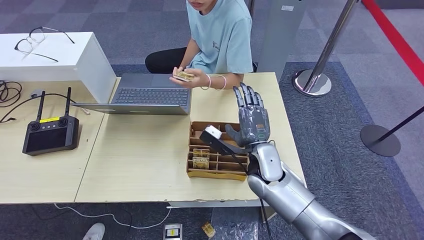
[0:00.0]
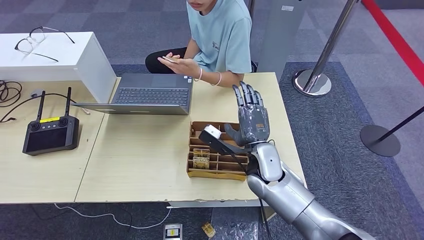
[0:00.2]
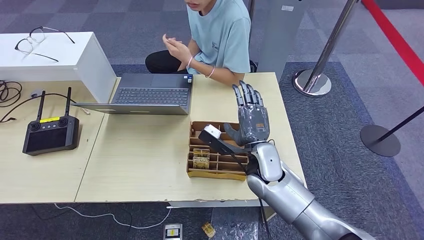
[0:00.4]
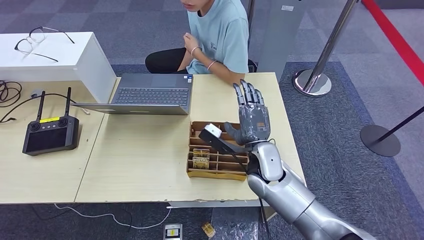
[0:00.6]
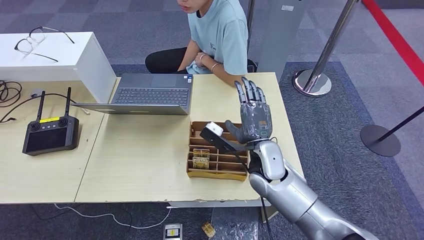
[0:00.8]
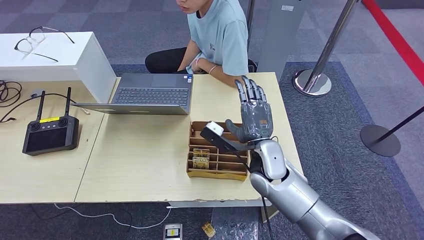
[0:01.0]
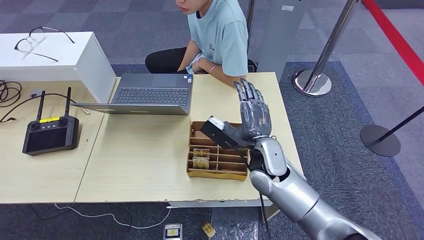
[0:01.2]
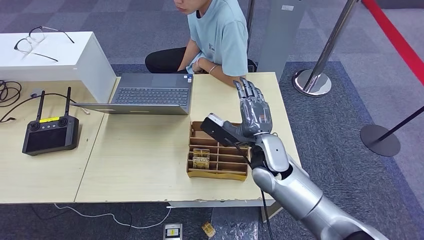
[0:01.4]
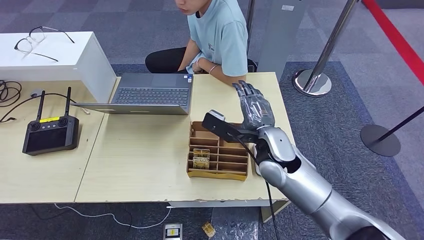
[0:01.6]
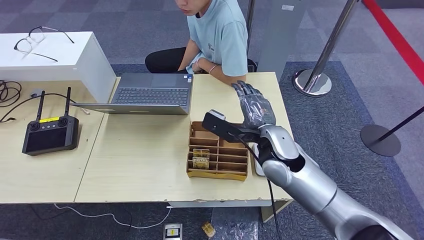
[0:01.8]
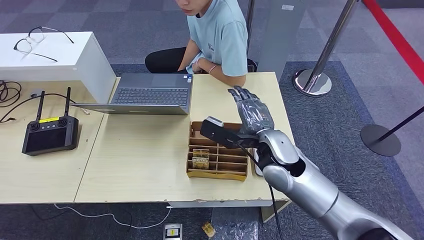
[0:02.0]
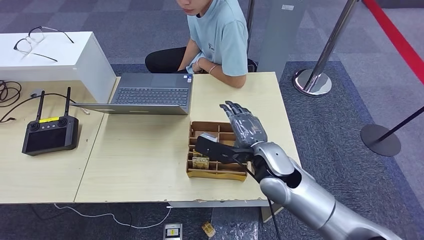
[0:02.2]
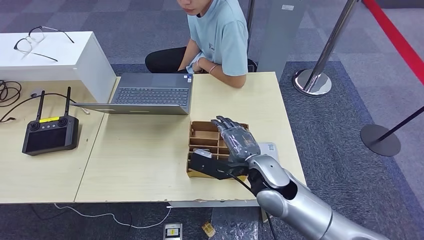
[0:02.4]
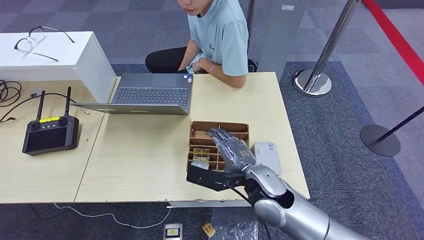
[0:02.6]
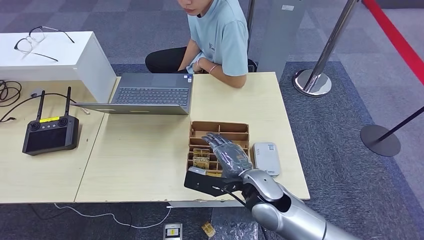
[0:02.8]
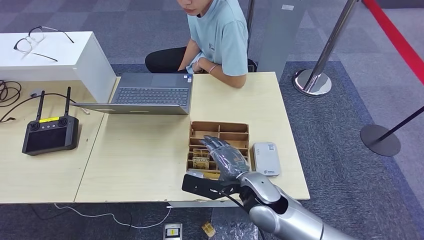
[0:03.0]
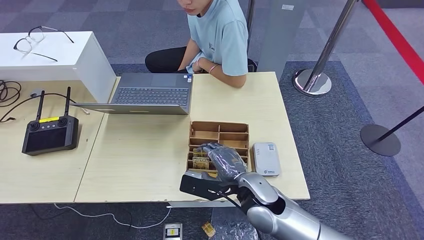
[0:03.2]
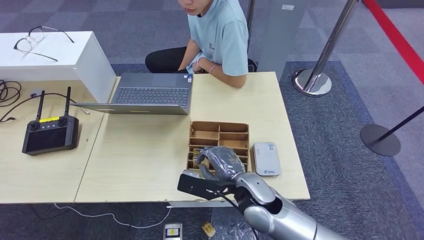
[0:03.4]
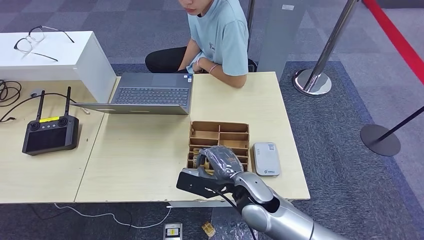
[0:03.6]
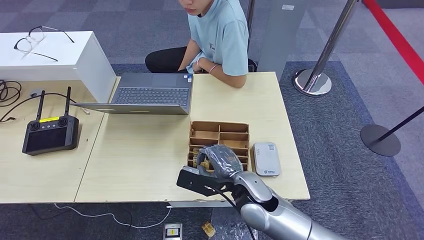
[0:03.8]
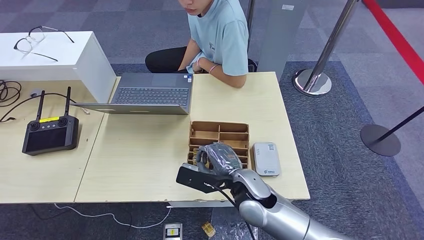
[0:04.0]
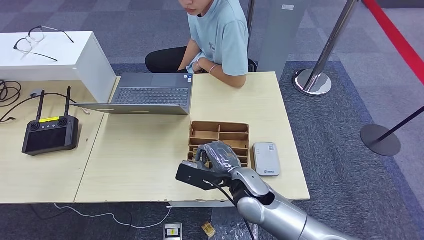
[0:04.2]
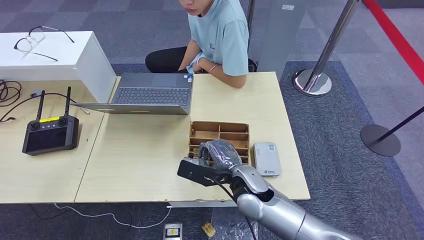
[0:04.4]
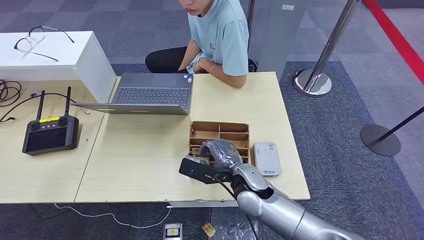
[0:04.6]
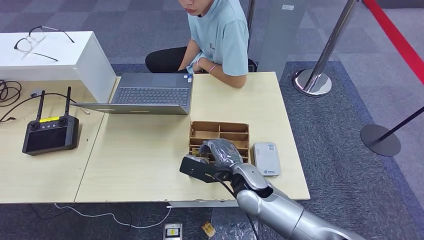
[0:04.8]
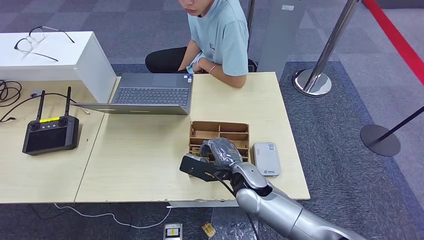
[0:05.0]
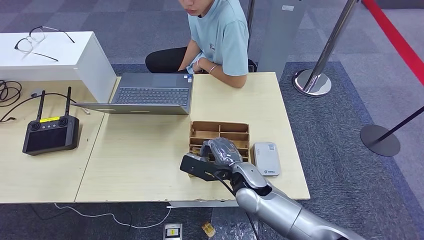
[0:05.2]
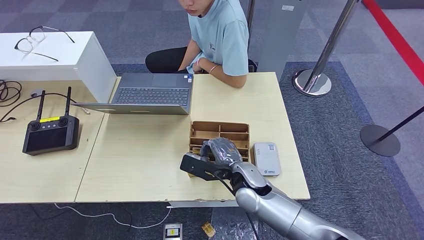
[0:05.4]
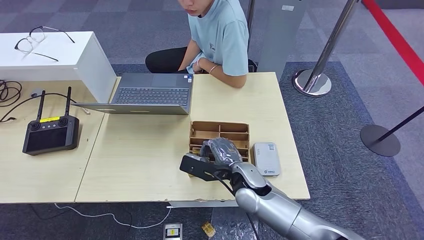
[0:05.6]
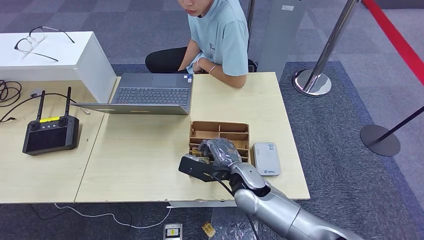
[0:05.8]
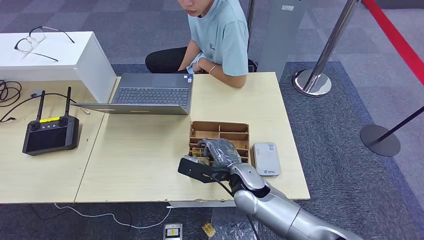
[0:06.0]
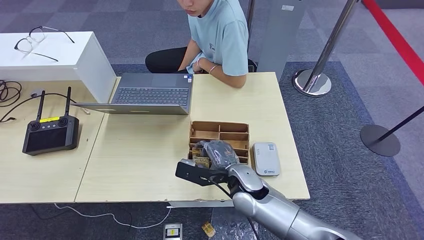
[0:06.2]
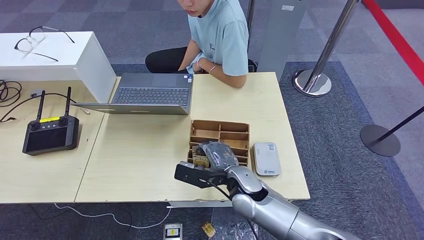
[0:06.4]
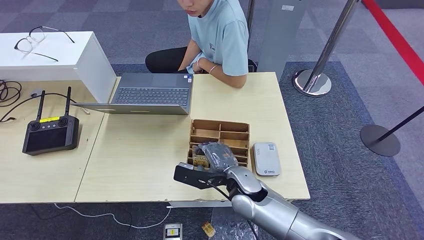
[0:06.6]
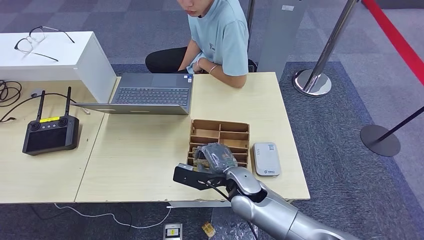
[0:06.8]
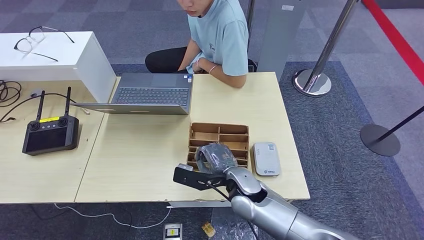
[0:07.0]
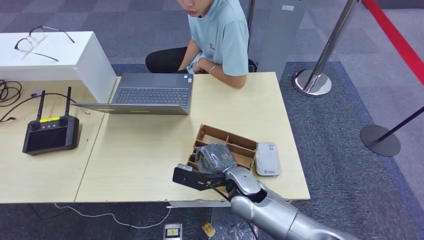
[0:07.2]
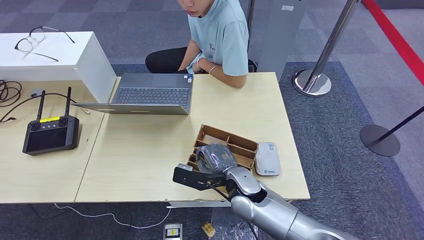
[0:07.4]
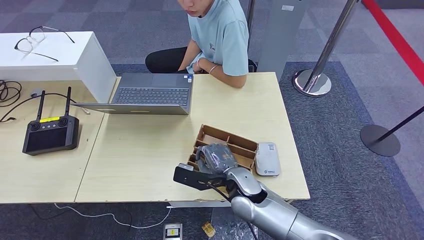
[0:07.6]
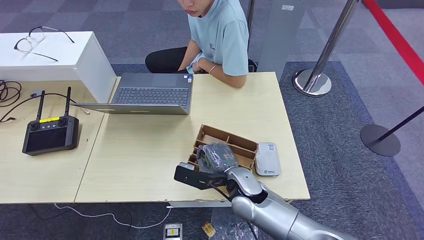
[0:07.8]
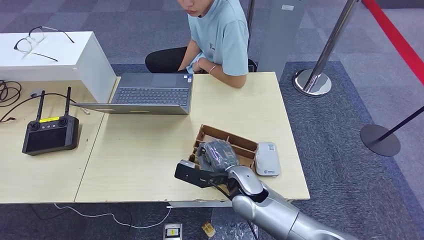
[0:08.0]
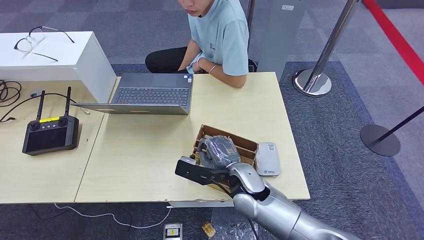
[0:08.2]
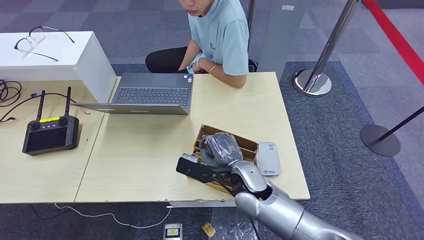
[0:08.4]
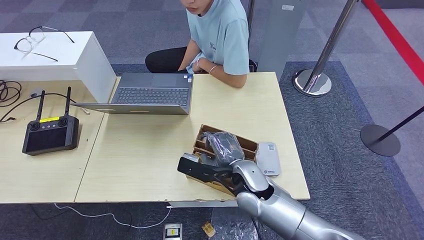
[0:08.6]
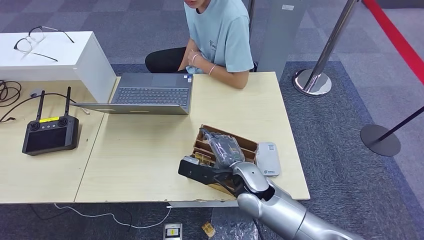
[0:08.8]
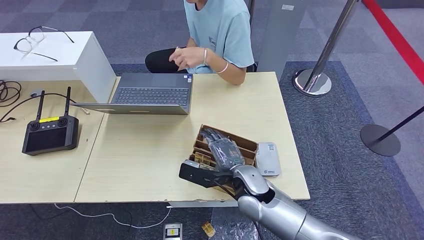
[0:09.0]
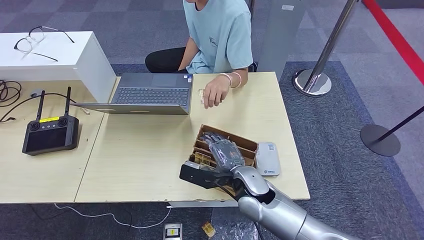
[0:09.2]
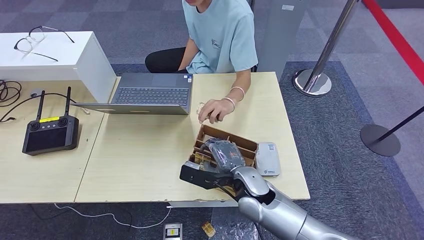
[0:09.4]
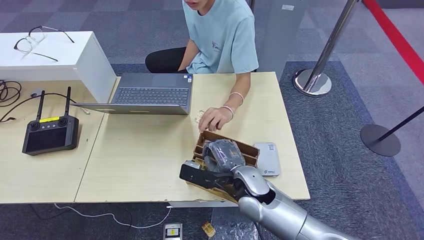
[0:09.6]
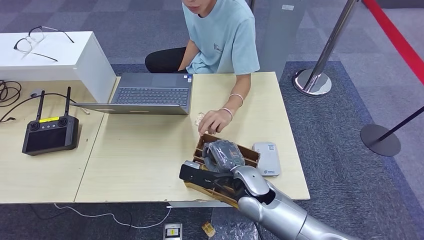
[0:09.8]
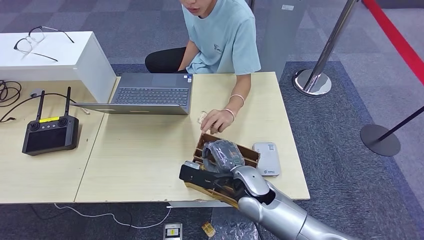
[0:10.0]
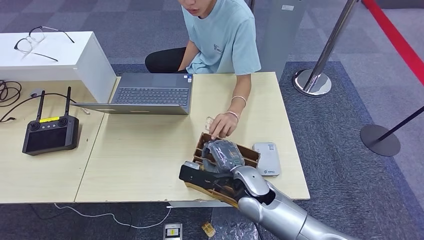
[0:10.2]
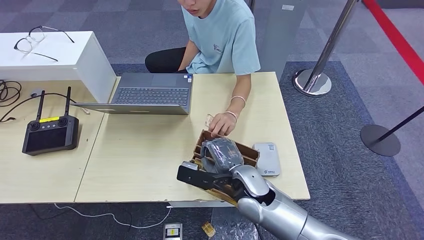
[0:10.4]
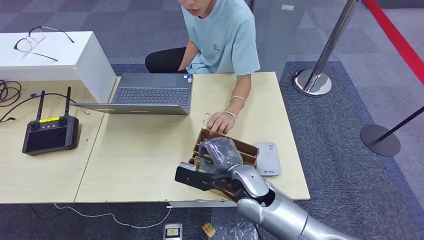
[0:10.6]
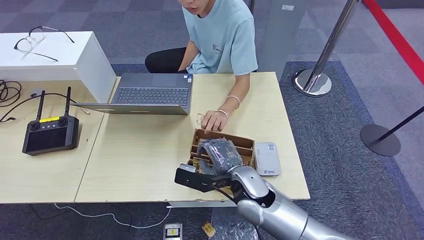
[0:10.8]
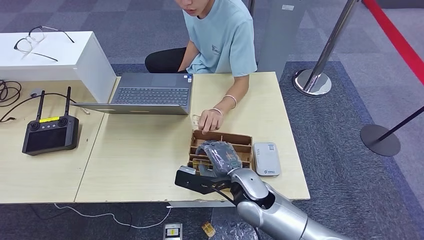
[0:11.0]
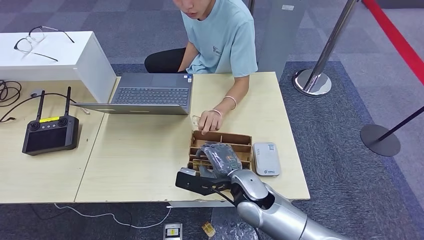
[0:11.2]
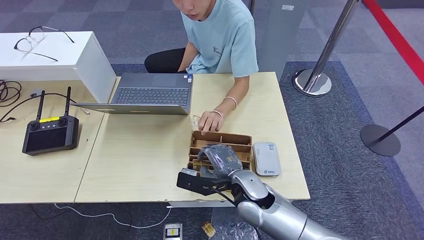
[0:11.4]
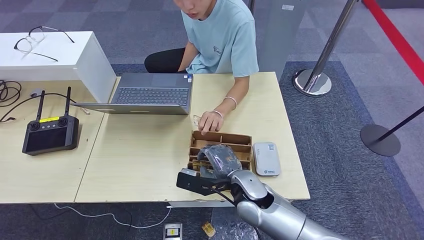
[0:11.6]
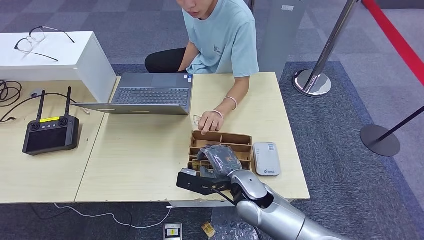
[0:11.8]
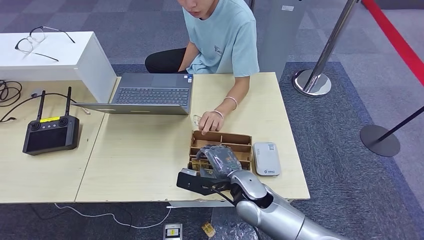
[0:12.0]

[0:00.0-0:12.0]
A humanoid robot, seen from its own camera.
0.0 to 1.6 s: The right hand shifts about 5 cm upward.
1.6 to 3.0 s: The right hand goes some 10 cm backward and downward.
3.0 to 6.0 s: The hands stay close to where they were, moving slightly.
6.0 to 7.6 s: Both hands stay about where they are.
7.6 to 9.0 s: The hands make only small movements.
9.0 to 10.4 s: Neither hand changes place.
10.4 to 12.0 s: The hands make only small movements.

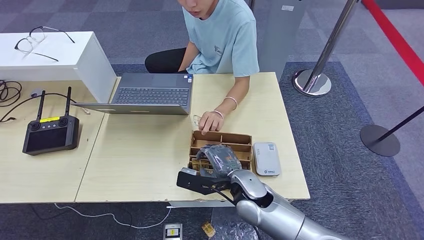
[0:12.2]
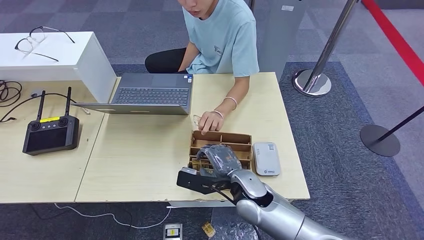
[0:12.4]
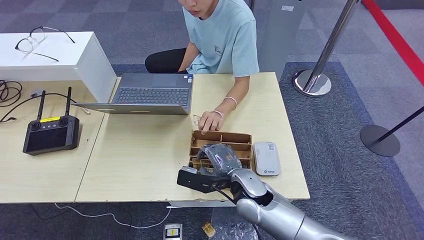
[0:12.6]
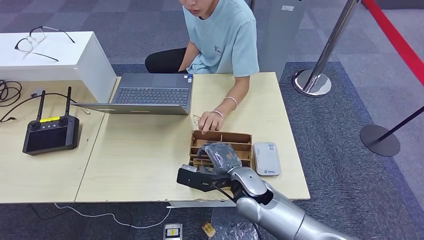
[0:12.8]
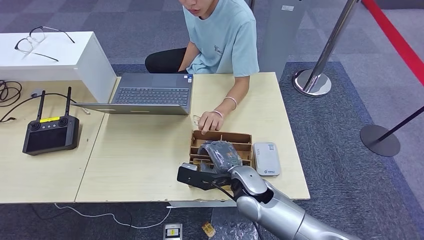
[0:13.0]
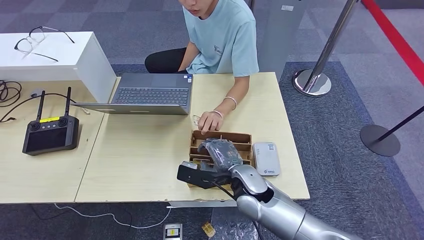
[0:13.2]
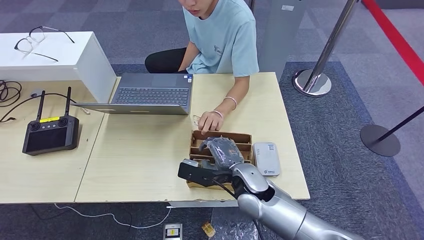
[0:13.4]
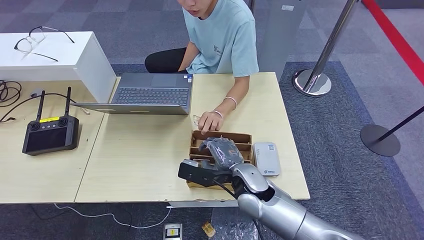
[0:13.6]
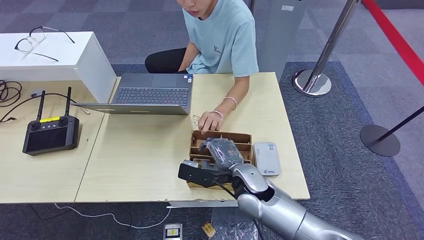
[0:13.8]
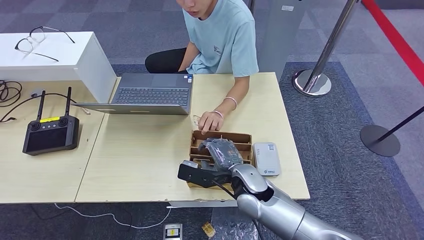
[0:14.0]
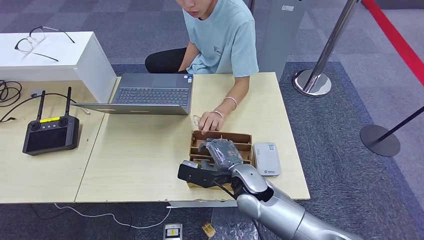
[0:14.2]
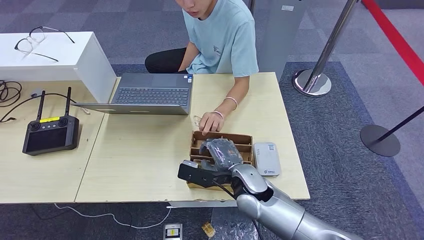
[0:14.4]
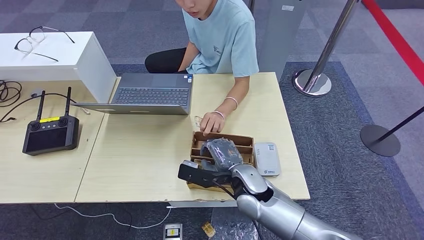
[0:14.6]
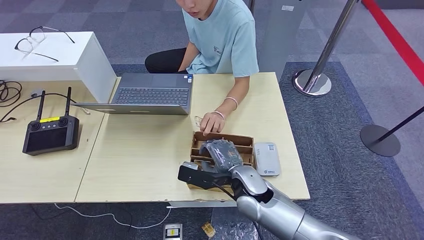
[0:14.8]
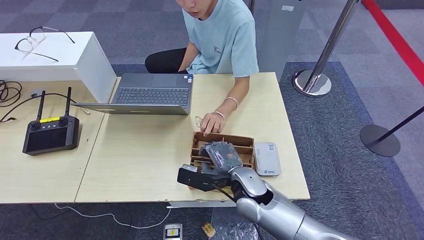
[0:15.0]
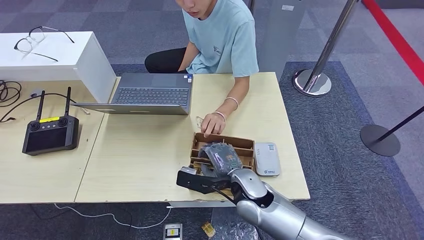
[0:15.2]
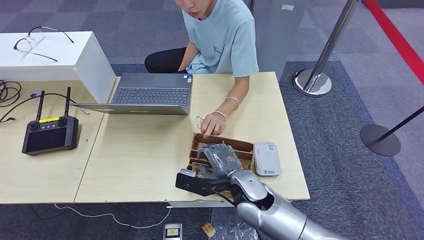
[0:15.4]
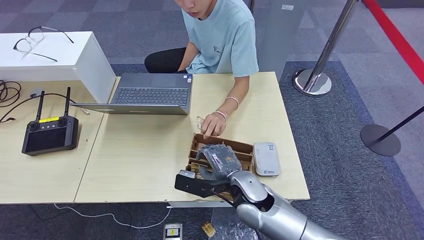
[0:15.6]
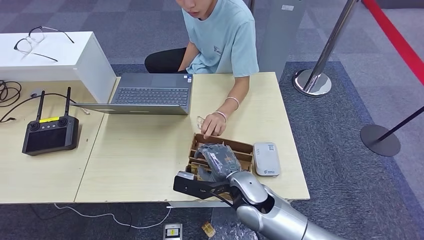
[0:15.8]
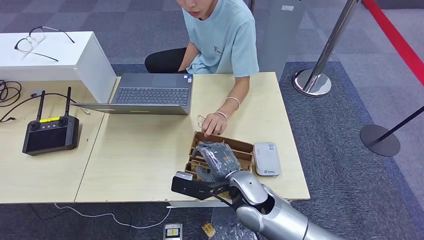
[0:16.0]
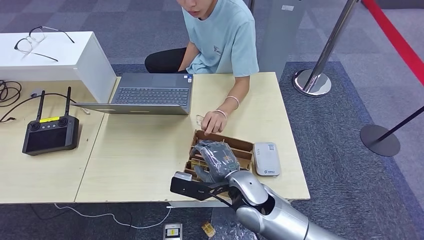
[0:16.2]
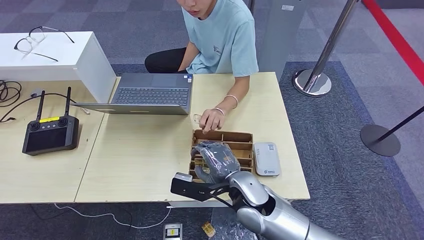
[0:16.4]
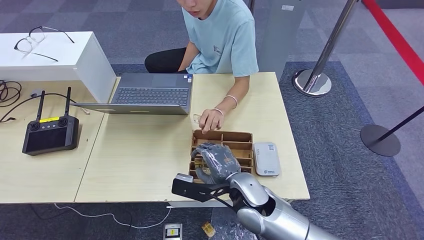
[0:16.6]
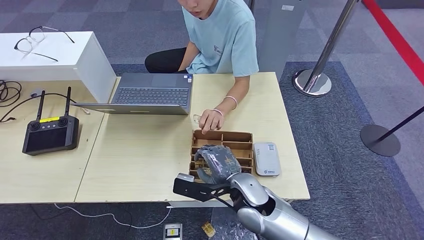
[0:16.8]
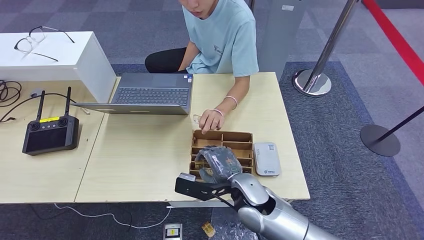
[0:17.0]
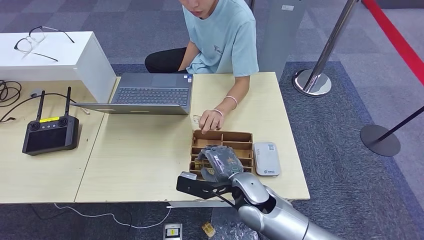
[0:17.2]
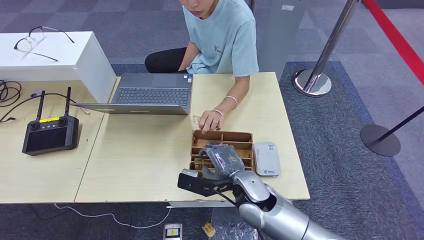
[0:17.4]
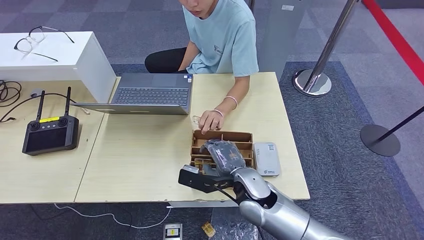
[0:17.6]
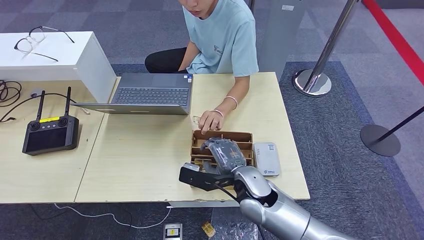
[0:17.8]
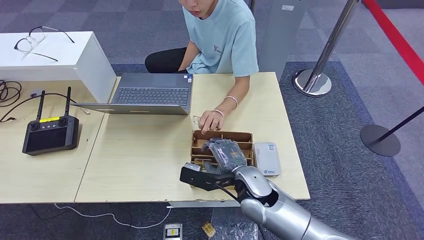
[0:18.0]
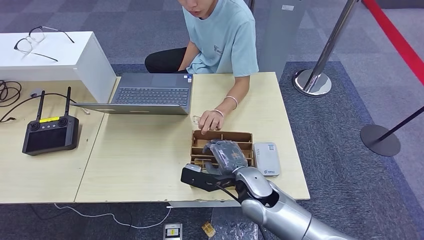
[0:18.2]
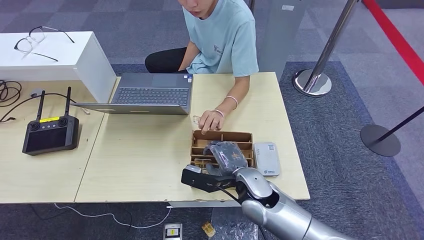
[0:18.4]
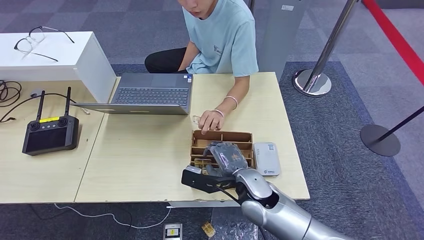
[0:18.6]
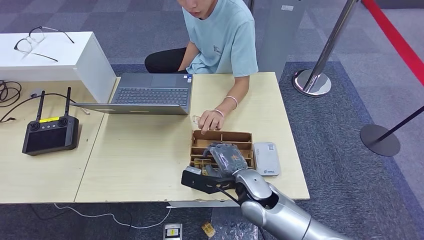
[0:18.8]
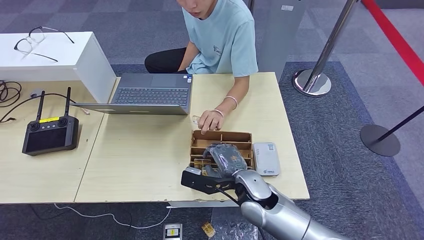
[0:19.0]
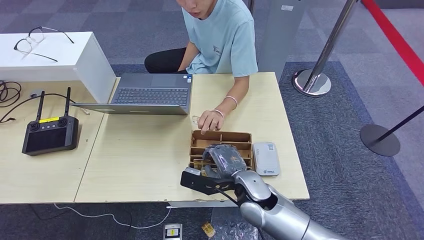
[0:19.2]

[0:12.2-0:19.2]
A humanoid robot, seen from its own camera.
12.2 to 13.6 s: The hands stay close to where they were, moving slightly.
13.6 to 15.0 s: Both hands stay about where they are.
15.0 to 19.2 s: The hands move only a little.
